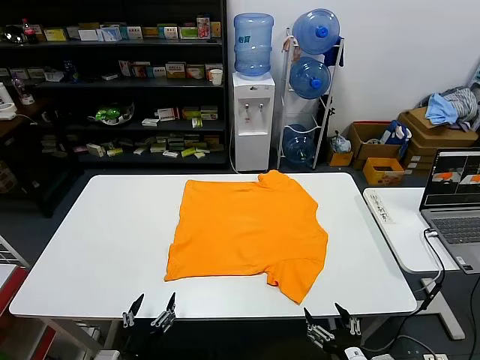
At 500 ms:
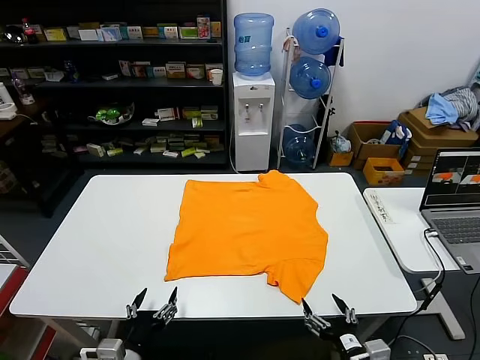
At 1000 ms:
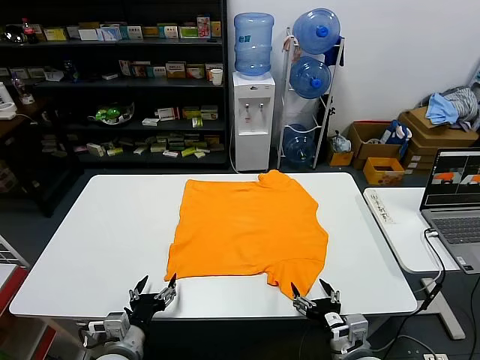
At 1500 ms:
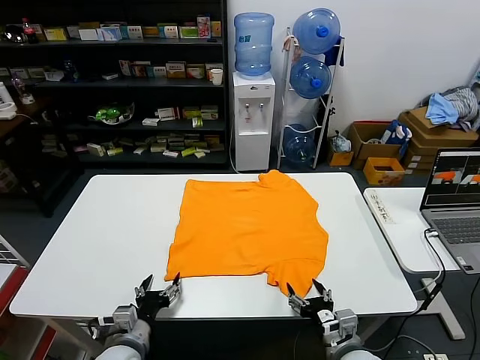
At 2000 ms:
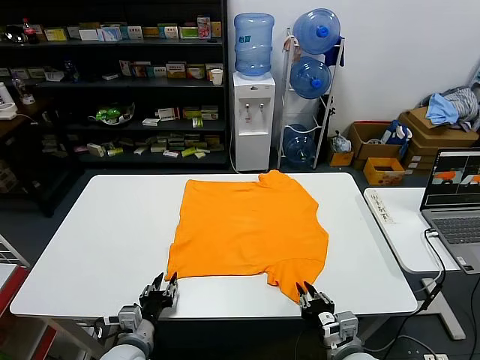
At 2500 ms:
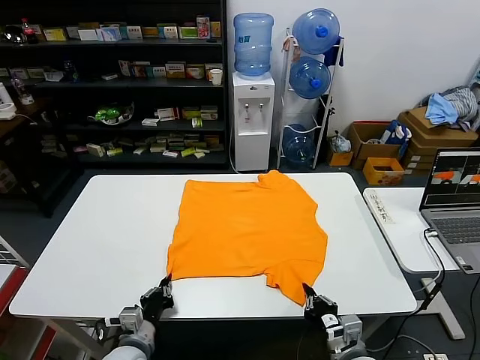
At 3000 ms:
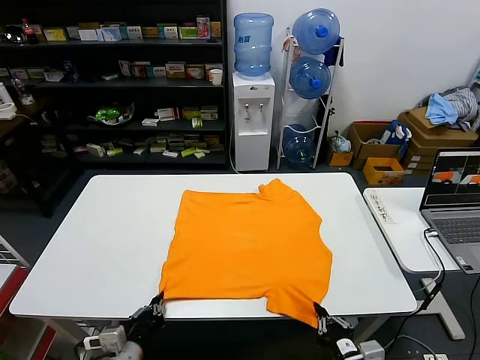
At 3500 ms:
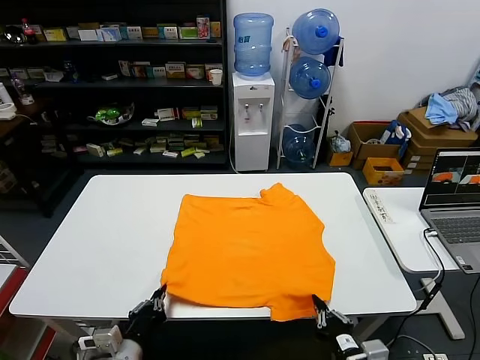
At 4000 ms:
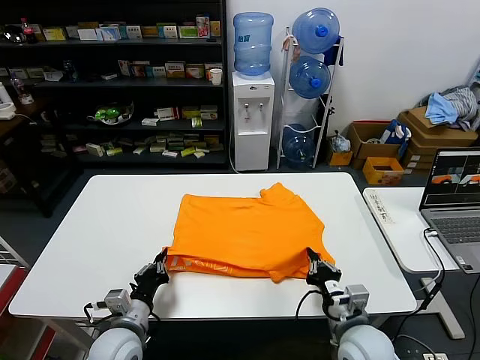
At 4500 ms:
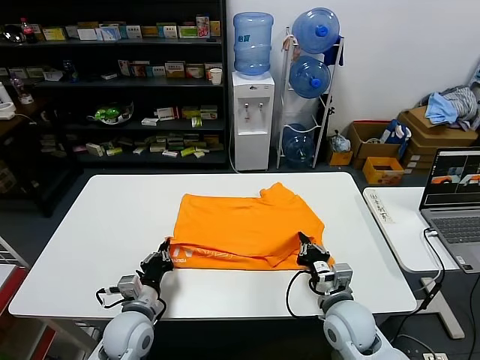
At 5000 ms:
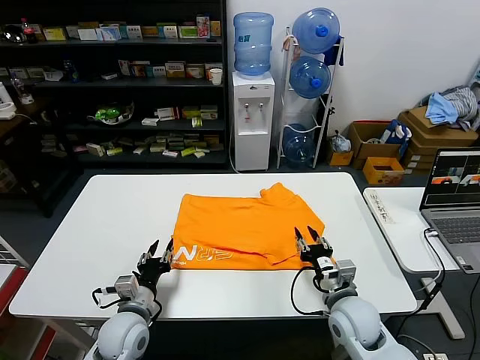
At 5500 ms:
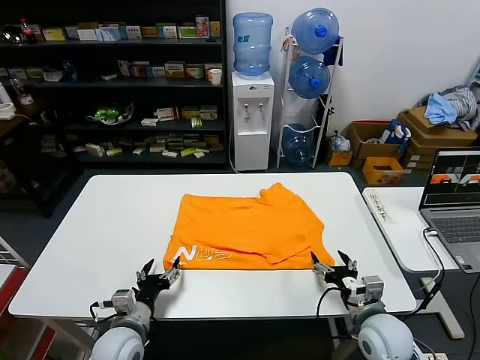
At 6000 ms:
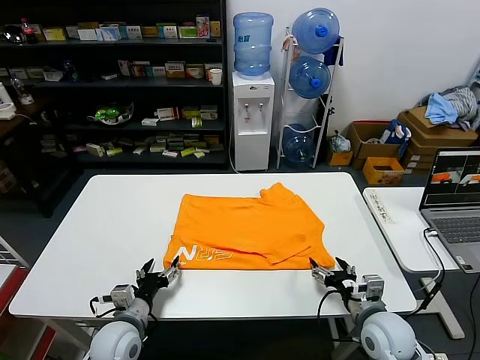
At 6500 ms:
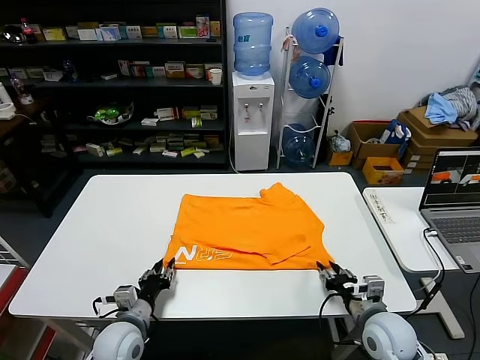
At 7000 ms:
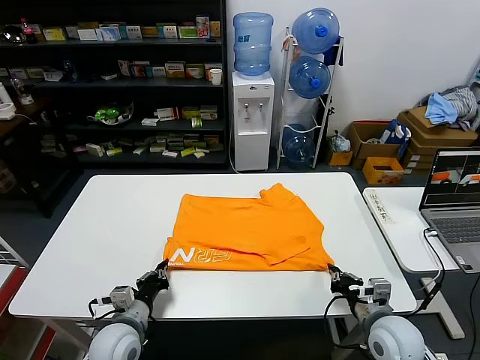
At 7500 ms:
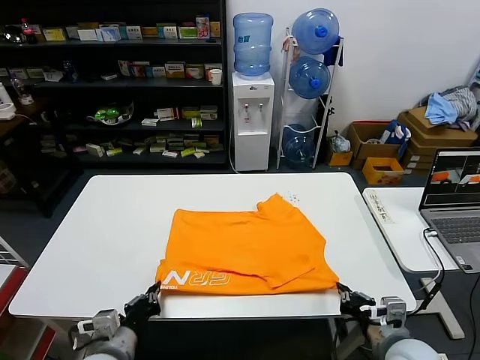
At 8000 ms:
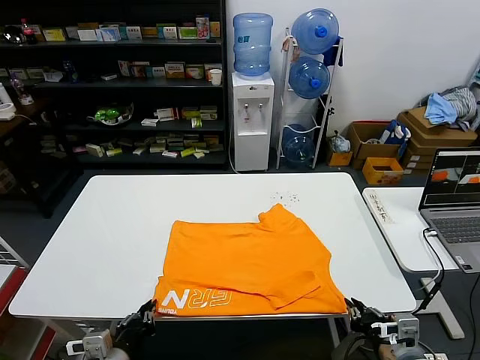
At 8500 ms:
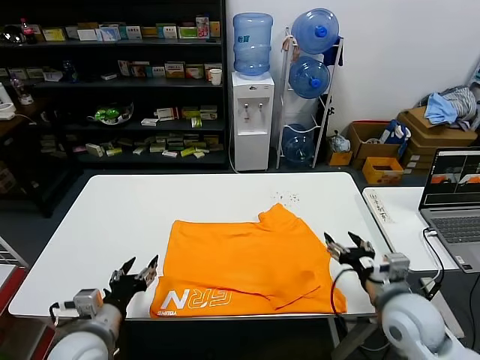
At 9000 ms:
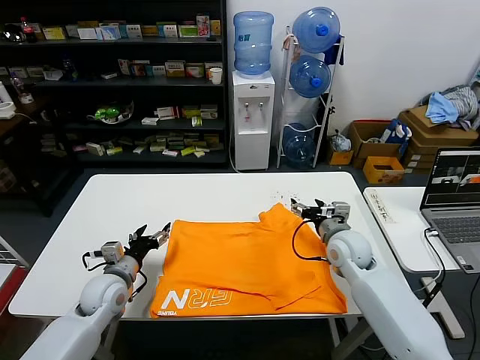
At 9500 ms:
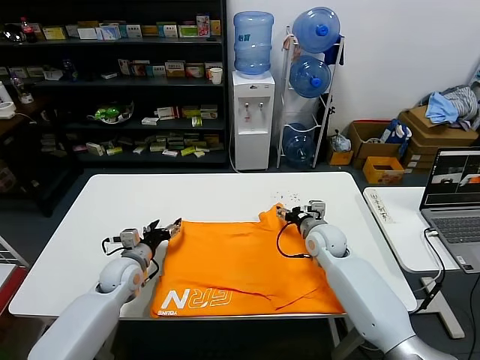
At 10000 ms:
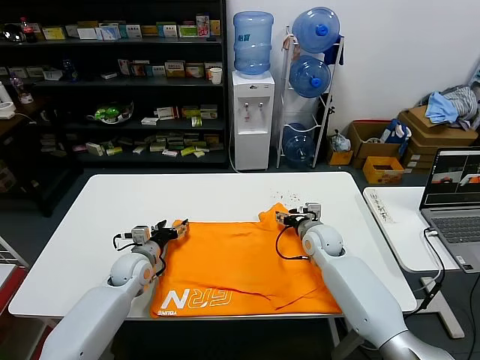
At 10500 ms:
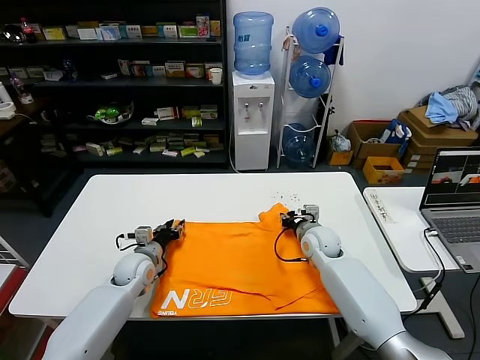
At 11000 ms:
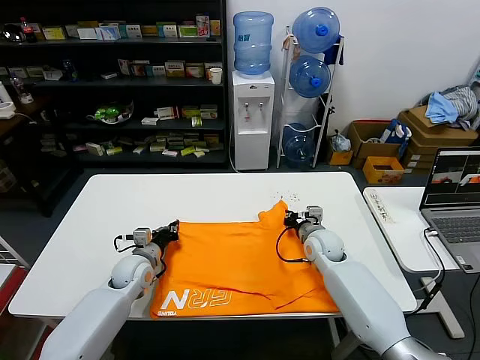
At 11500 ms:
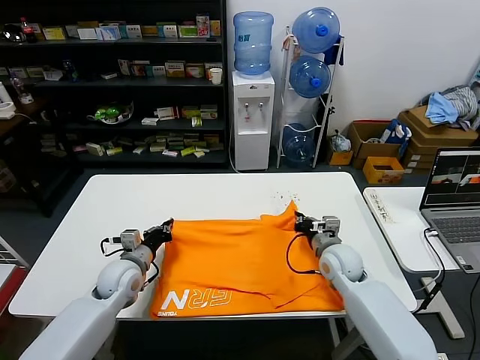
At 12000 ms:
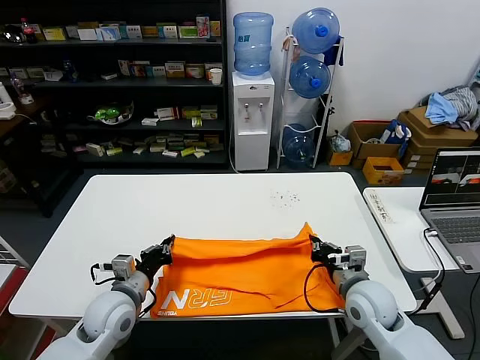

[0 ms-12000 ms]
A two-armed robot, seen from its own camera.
Task of the whole recording: fold and organize the clothes.
Step, 0 ms to 2000 ms: use both grippers simultaneously to clamp the lower edge of the clothing fabric.
Step, 3000 ms to 4500 ms: use both grippers to drag the lower edge of the fabric forward and fold it over the upper edge.
Step, 5000 ms to 8000 ms: Drag the clothes downward with both gripper.
Step, 8500 ms to 10500 ms: use both grippers simultaneously to clamp the upper edge of the clothing fabric.
2000 ms to 4000 ms: The left gripper goes backward and returns, about 5 cm each way, and closes up. Meanwhile the right gripper is displaced forward by approximately 5 cm.
4000 ms to 6000 ms: The left gripper opens up; the right gripper goes approximately 5 cm to the right, and opens.
6000 ms to 8000 ms: The two grippers go approximately 15 cm backward and upward. The left gripper closes up. Meanwhile the right gripper closes.
8000 ms to 10000 ms: The grippers both shift forward by roughly 30 cm. The right gripper opens; the left gripper opens up.
10000 ms to 12000 ms: The left gripper goes some 15 cm backward and upward, and closes; the right gripper is displaced backward by some 20 cm, and closes up.

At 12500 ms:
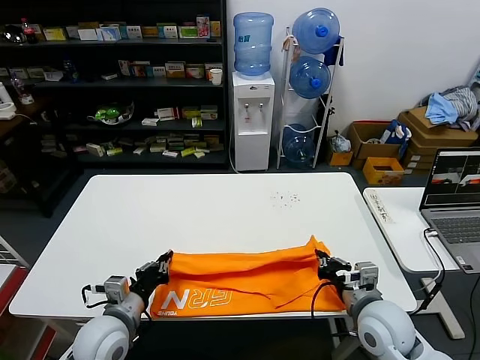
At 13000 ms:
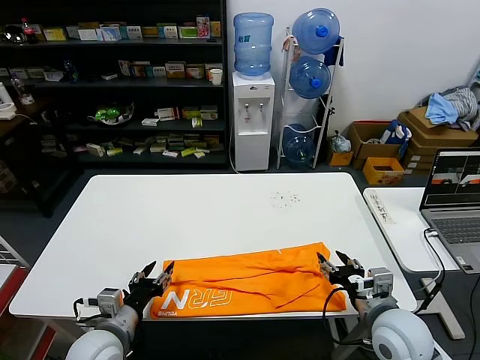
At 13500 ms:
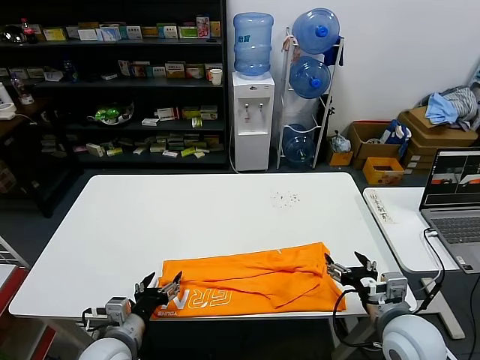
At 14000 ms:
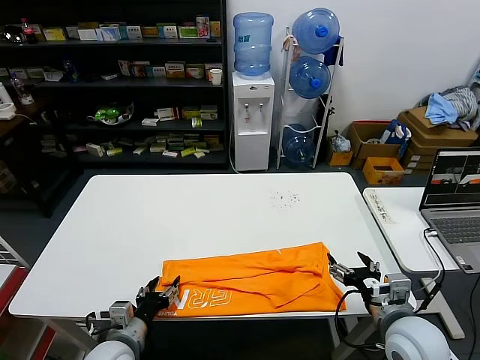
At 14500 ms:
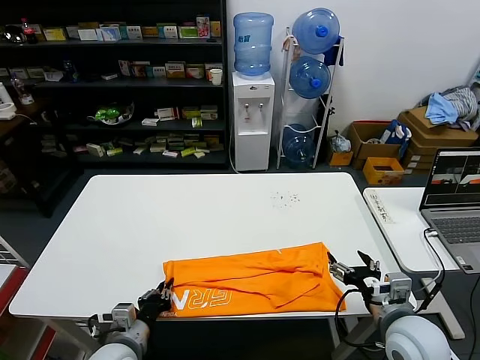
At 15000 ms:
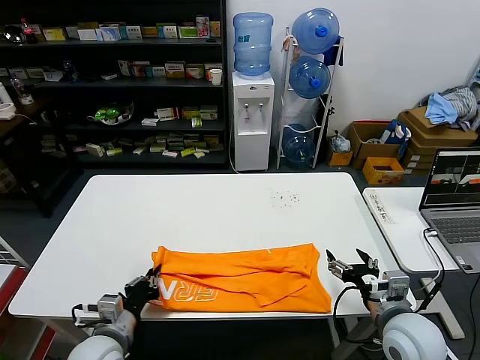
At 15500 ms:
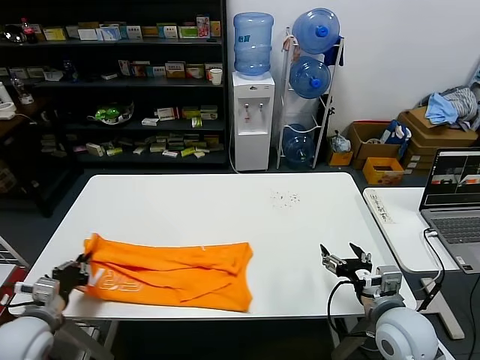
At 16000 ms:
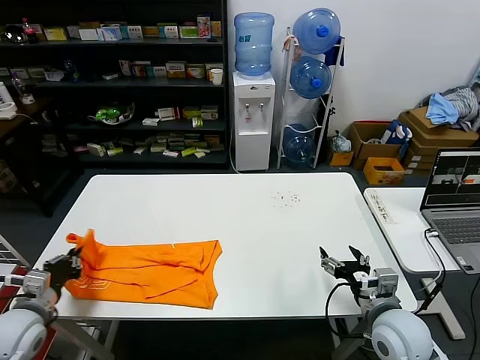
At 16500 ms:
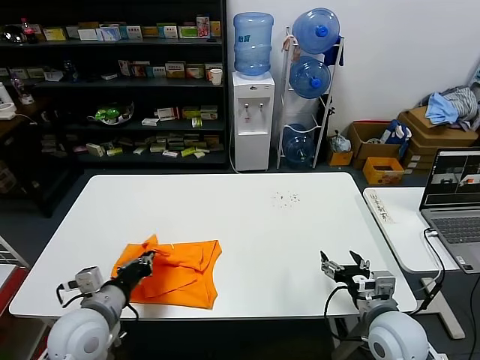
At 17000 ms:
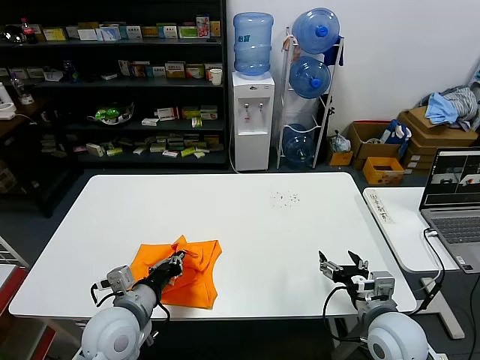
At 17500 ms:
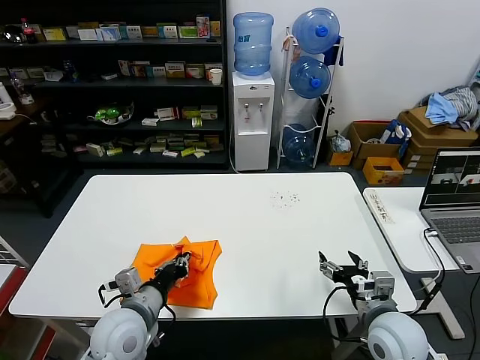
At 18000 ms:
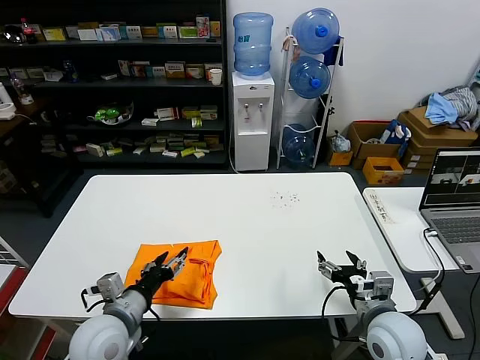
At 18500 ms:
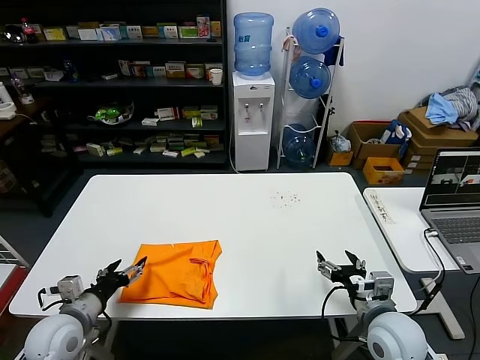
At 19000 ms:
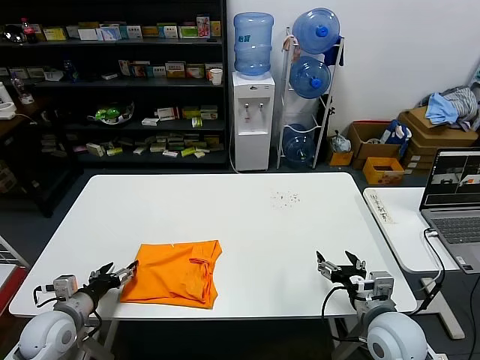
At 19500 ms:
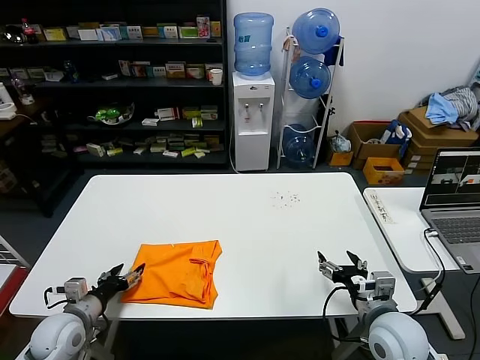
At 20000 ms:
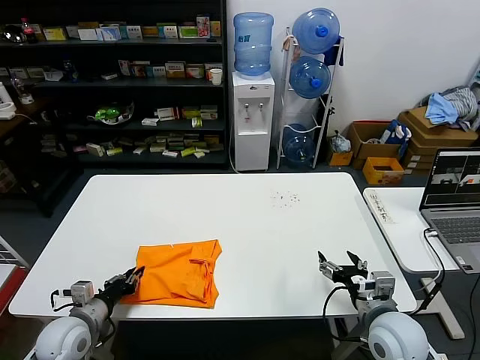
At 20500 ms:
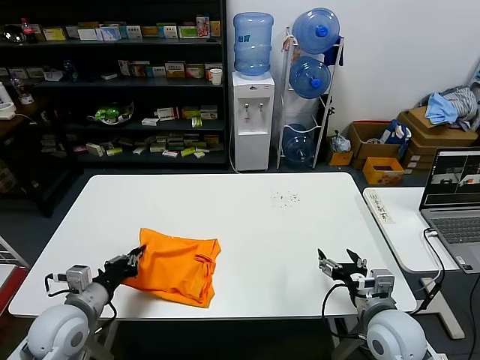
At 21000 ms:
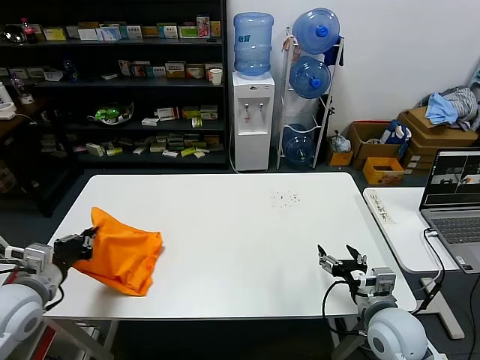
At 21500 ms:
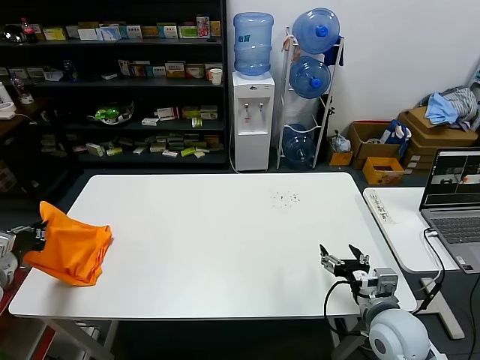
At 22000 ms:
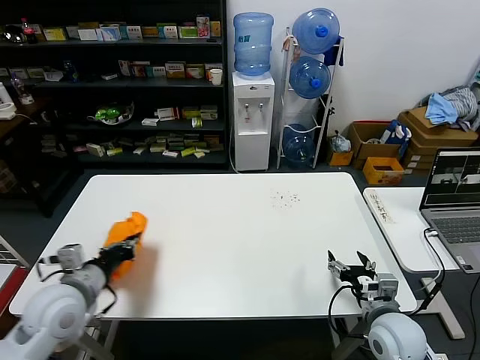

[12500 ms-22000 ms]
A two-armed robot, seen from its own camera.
Task of the whole recording: fold and organize the clothes.
Step, 13000 ms to 14500 ms: use the left gripper to clamp the left edge of the fabric.
Step, 15000 ms to 18000 ms: use the left gripper to drag the left edge of the fabric to the left and folds it over the right edge.
12500 ms to 14500 ms: The right gripper changes place by some 5 cm, and opens up, while the left gripper travels downward by about 5 cm, and opens, then closes once more.
14500 ms to 16500 ms: The left gripper goes about 10 cm upward, and moves approximately 20 cm to the left and comes back.
16500 ms to 18000 ms: The left gripper goes about 5 cm to the right, and opens.
18000 ms to 20000 ms: The left gripper moves to the left and downward, some 15 cm, and closes its fingers.
20000 ms to 22000 ms: The left gripper moves upward, approximately 15 cm.

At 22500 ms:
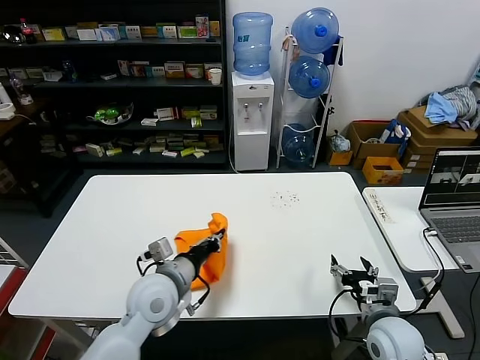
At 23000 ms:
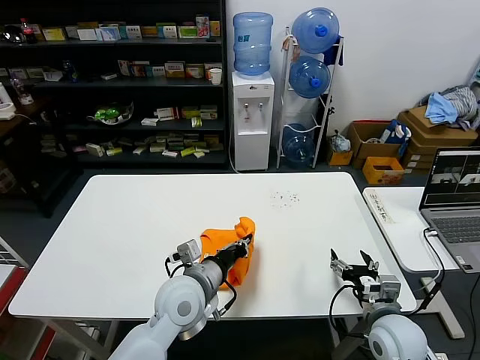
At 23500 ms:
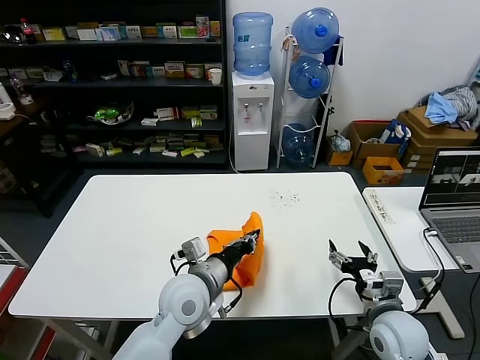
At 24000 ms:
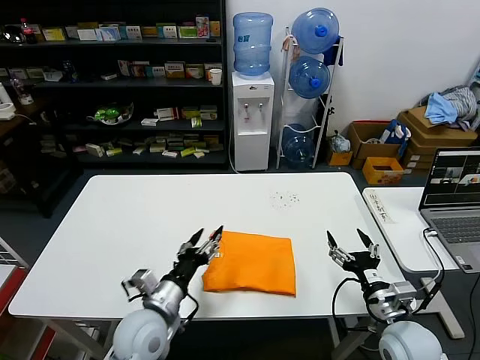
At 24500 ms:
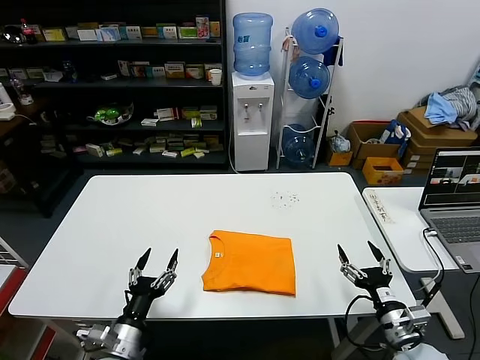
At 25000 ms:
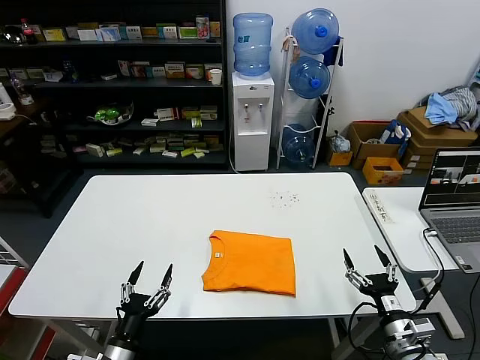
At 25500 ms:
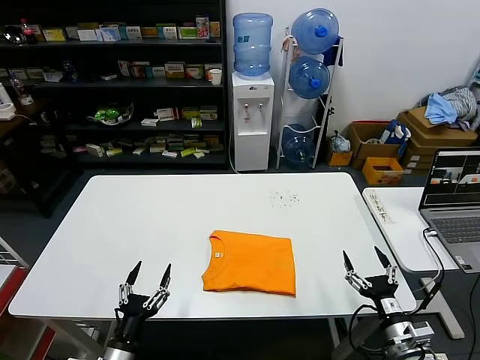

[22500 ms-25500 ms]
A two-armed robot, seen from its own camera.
Task of the whole recording: fold and organize the clothes.
22500 ms to 24000 ms: The left gripper moves some 10 cm to the right and comes back, and opens up.
24000 ms to 25500 ms: The left gripper travels backward, downward and to the left by roughly 20 cm; the right gripper goes some 10 cm downward and backward.
